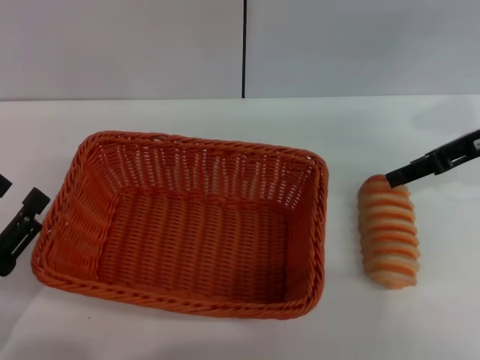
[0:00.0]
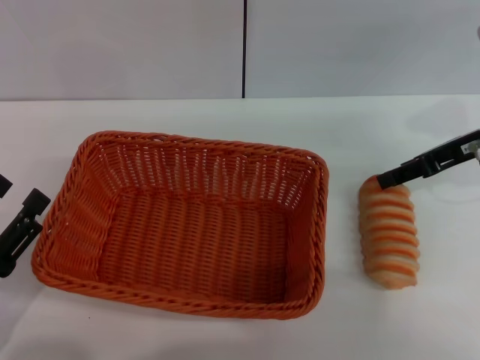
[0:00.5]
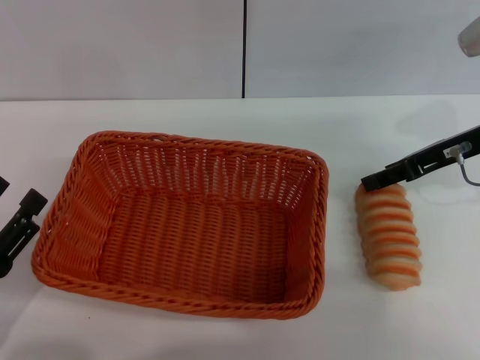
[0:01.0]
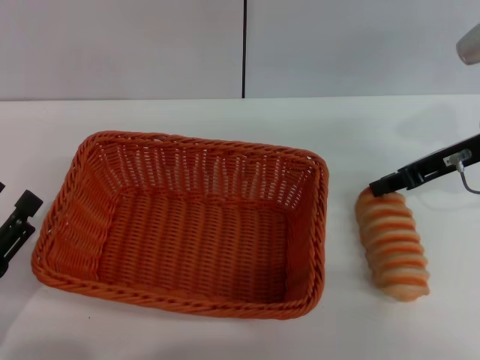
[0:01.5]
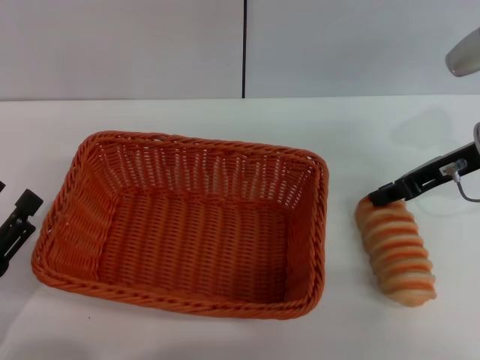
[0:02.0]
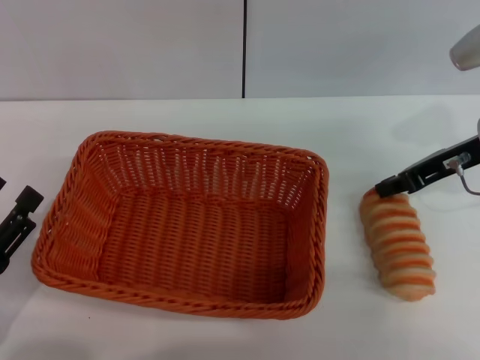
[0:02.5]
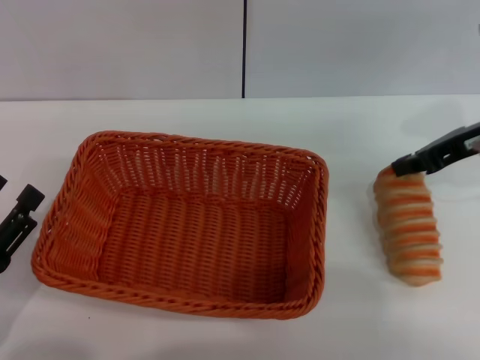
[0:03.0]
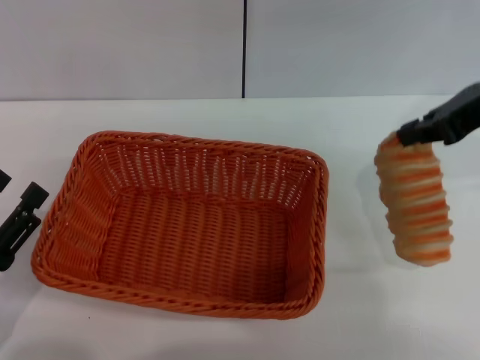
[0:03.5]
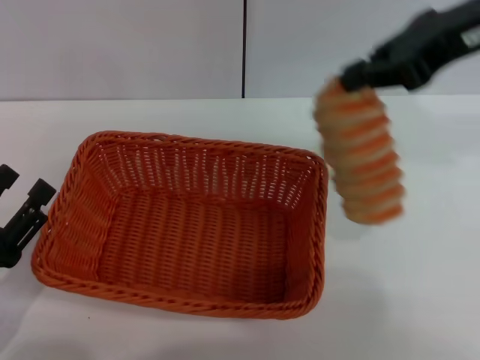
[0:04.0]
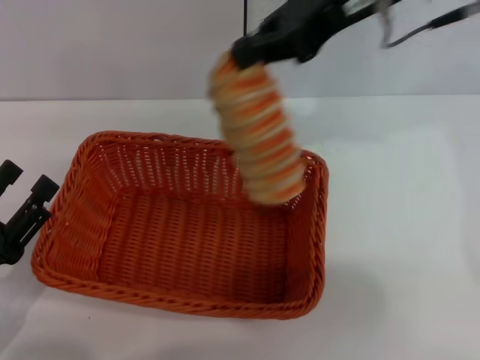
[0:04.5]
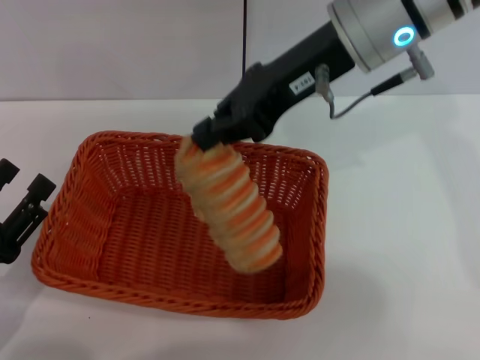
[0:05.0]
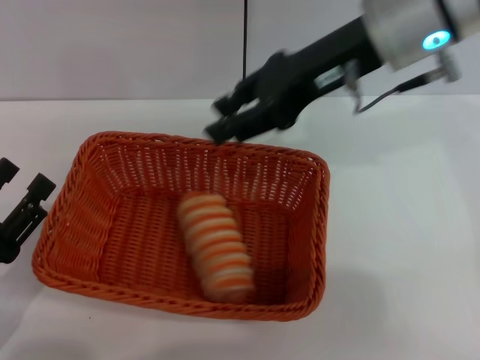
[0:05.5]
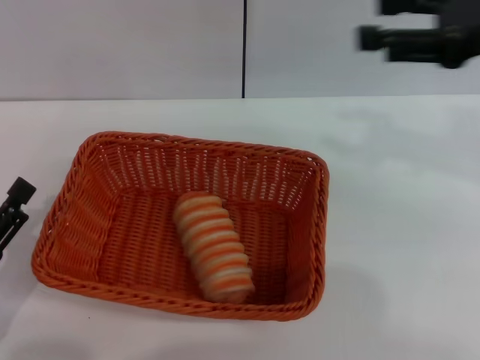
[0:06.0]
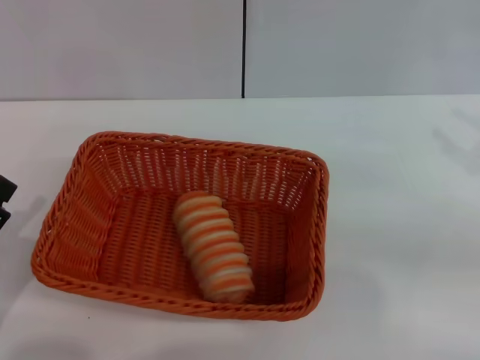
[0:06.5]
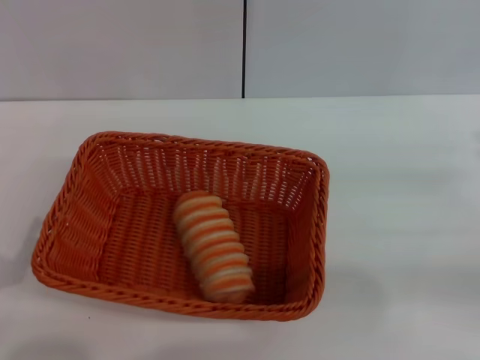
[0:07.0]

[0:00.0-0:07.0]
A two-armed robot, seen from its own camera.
Step, 0:00.0 to 0:03.0: Pick up the long bread with the right gripper.
Step, 0:03.5 to 0:05.5: Place the long bread into the light basket with the right gripper.
0:00.0 to 0:02.0: The right gripper closes.
0:02.0 to 0:03.5: The right gripper moves upward, approximately 10 cm.
0:03.5 to 0:05.0: The right gripper shifts approximately 15 cm to the left.
0:05.0 to 0:07.0: The right gripper travels to the right, downward and backward by approximately 35 cm, and opens up.
